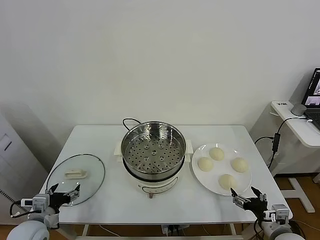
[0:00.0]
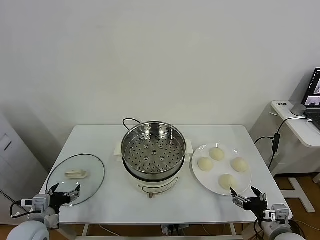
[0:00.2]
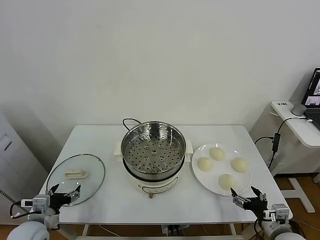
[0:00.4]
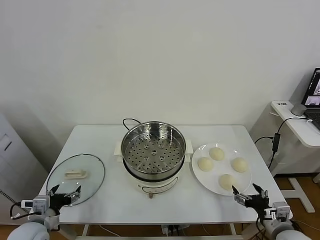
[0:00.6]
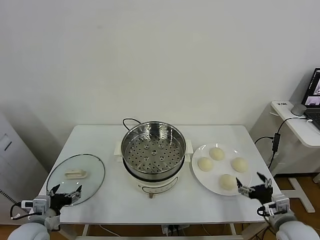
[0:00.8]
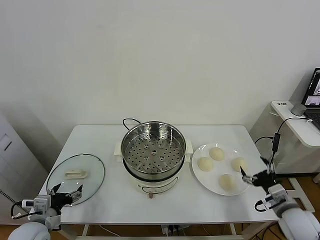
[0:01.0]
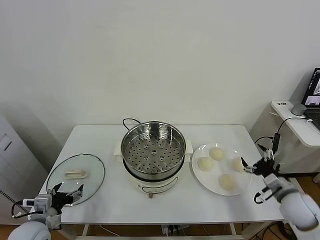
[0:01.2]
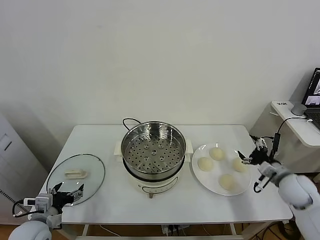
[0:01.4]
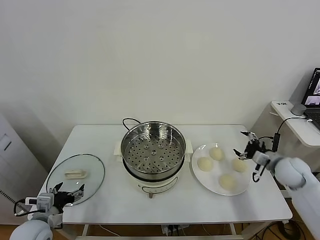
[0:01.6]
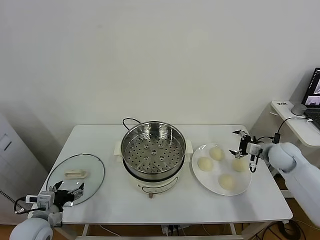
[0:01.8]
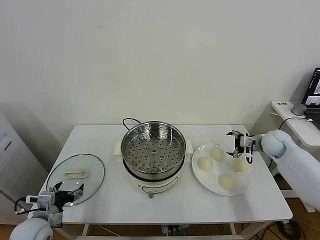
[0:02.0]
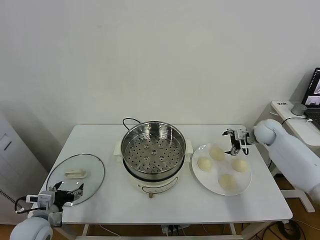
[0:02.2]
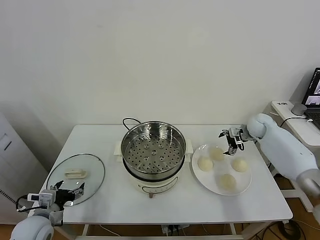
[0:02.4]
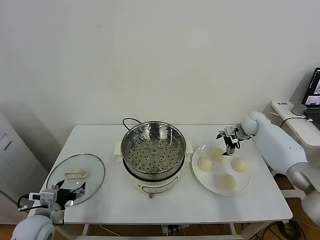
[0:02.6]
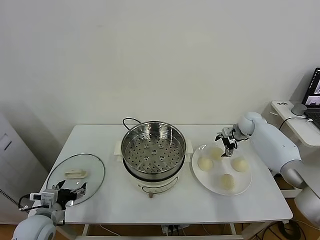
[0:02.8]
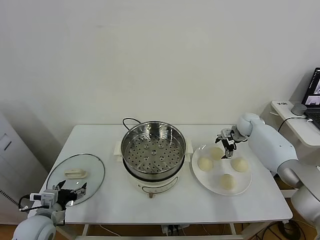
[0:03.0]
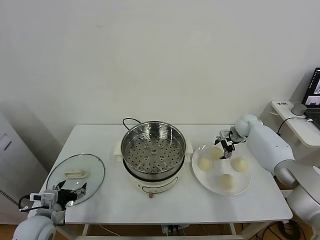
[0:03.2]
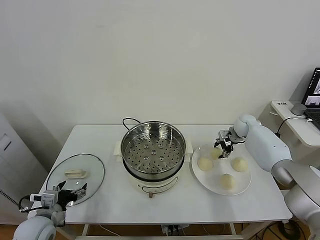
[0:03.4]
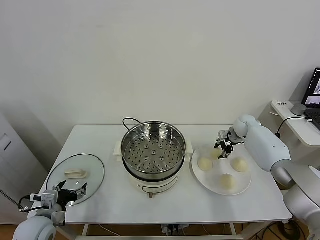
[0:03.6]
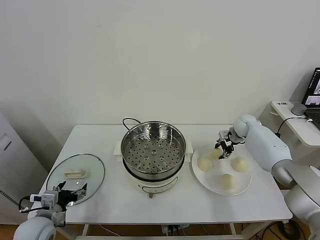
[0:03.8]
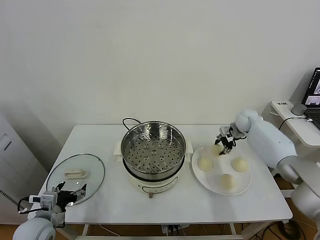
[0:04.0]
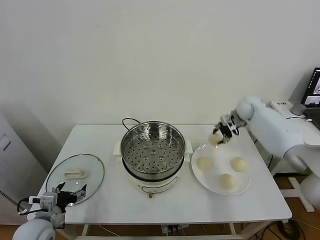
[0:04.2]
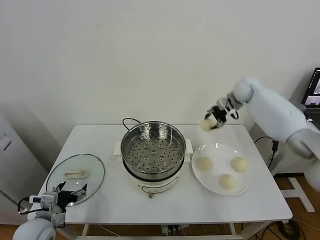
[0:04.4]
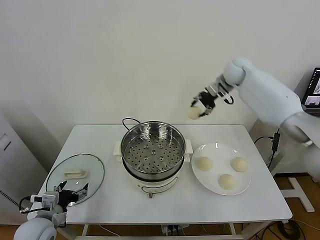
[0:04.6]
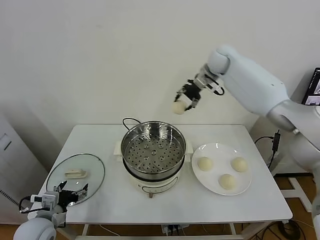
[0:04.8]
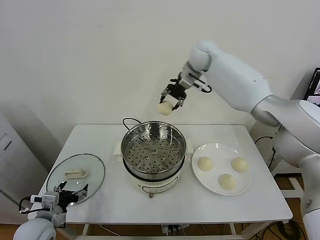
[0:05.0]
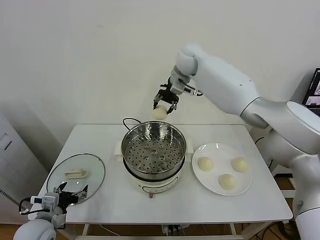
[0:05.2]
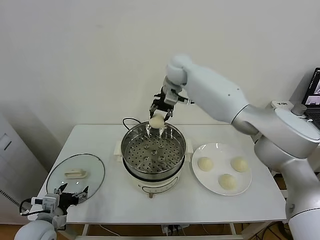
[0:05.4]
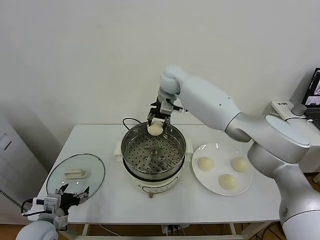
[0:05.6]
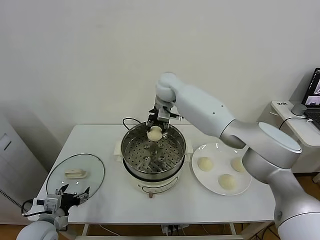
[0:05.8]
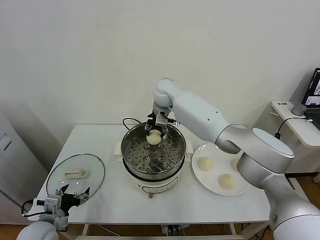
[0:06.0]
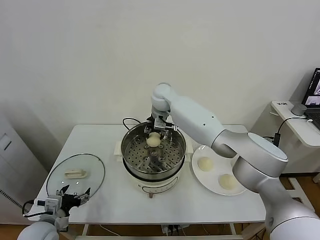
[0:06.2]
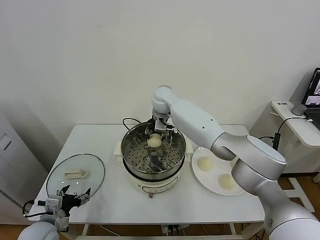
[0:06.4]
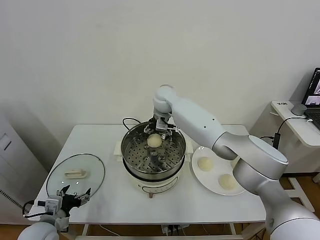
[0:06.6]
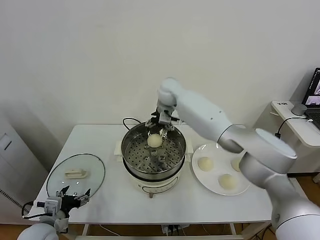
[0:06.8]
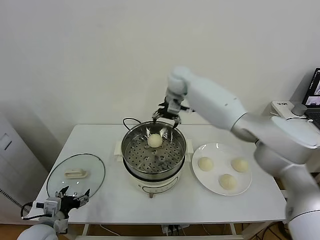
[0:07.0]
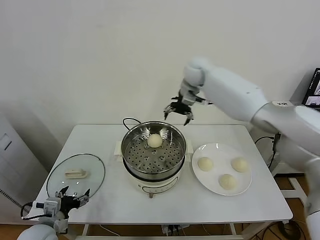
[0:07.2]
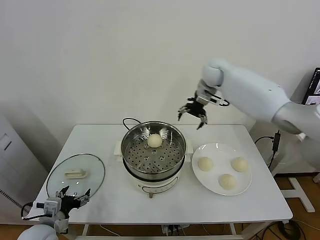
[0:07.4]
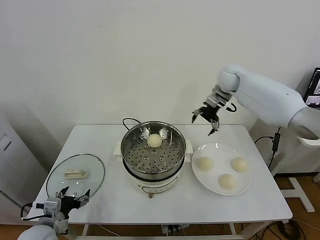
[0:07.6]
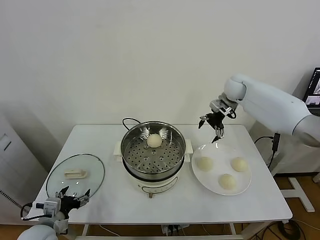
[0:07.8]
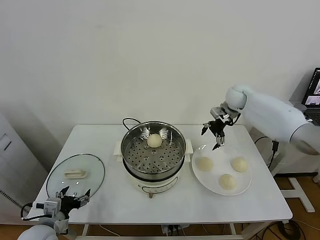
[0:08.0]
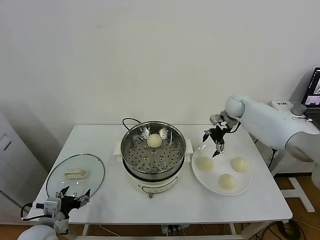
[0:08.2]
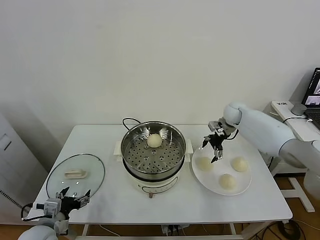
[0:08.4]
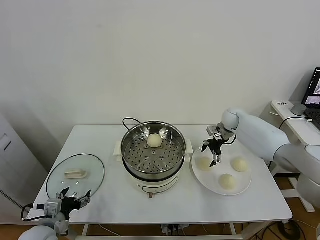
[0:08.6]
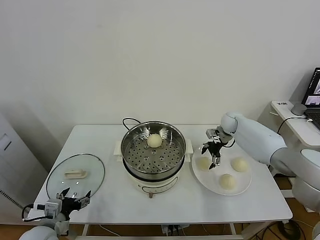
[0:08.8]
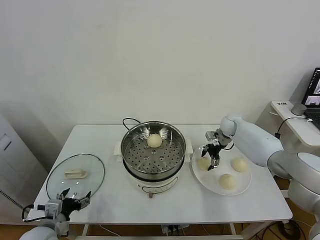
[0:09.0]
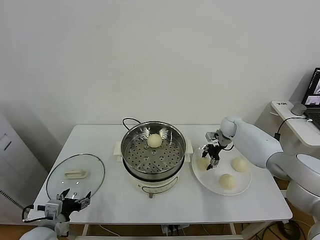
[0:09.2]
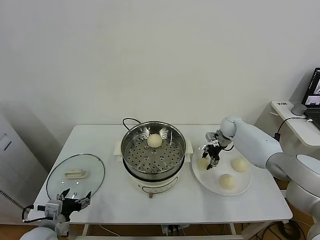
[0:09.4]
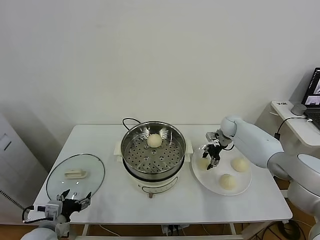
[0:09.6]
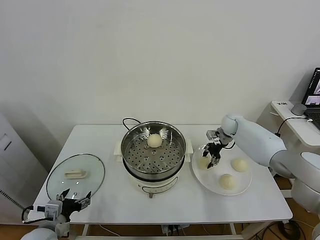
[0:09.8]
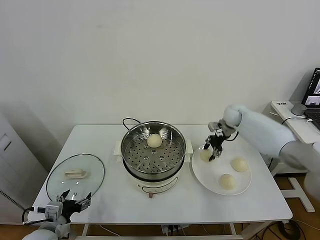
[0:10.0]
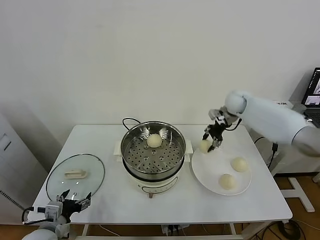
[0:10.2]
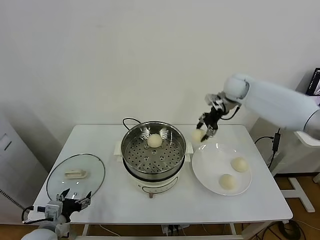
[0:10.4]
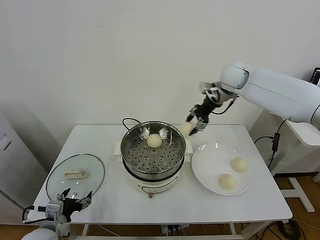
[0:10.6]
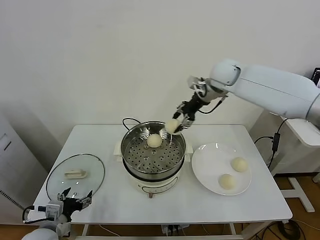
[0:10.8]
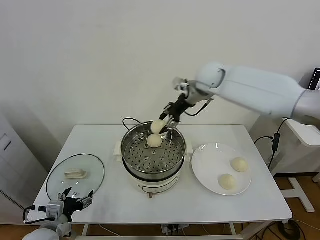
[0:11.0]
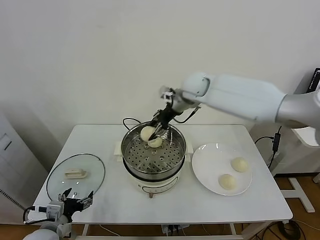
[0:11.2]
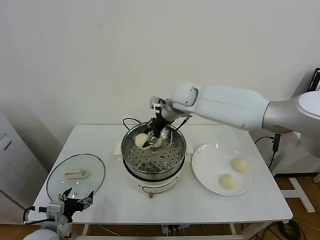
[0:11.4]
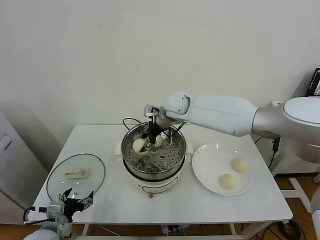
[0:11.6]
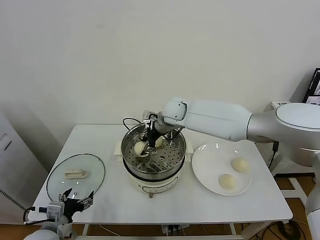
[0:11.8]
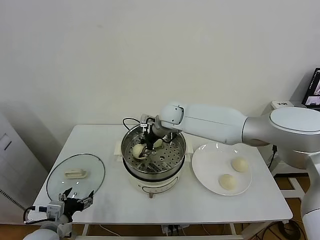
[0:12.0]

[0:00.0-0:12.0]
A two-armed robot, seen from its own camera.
Task of the whole recording: take steamed baozi put them in steamer.
Step, 0:00.0 to 0:03.4: Grasp the baozi in the plate with right gripper.
Step, 0:03.6 to 0:06.6: Place the baozi on the steamer with right gripper.
Step, 0:06.8 to 0:09.2: Grasp the baozi in the plate with right gripper.
0:01.6 to 0:03.0: The right gripper shifts some 20 cm forward.
0:03.0 to 0:04.4: The right gripper is displaced upward by some 20 cm, and closes its fingers.
0:04.4 to 0:06.0: The right gripper shifts approximately 30 cm to the left.
0:06.0 to 0:07.6: The right gripper shifts roughly 25 cm to the right, and opens up.
0:07.6 to 0:09.0: The right gripper goes roughly 20 cm downward.
0:09.0 to 0:10.4: The right gripper heads upward, covering some 20 cm, and closes its fingers.
0:10.4 to 0:12.0: The right gripper travels to the left and downward by some 25 cm.

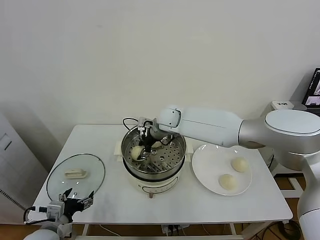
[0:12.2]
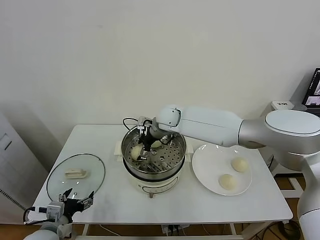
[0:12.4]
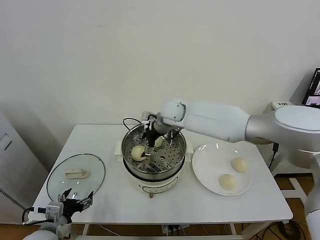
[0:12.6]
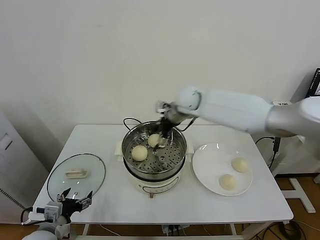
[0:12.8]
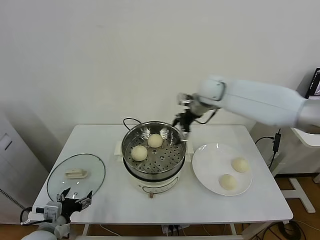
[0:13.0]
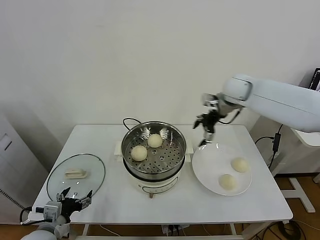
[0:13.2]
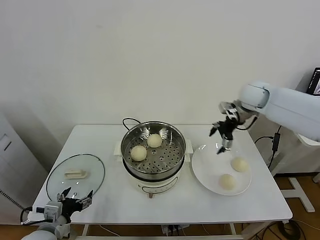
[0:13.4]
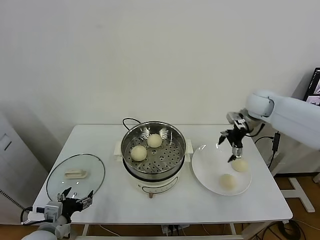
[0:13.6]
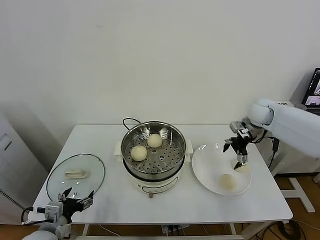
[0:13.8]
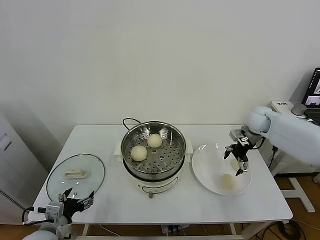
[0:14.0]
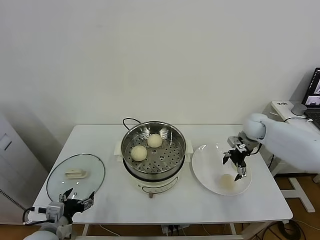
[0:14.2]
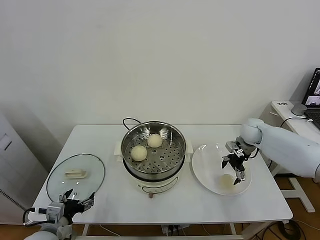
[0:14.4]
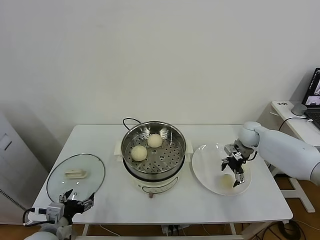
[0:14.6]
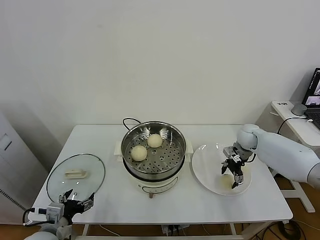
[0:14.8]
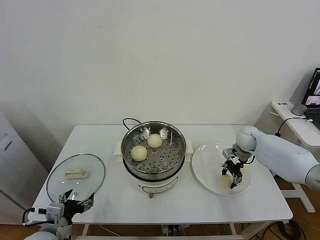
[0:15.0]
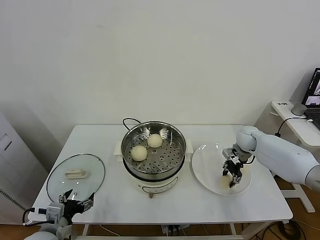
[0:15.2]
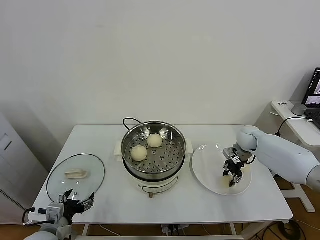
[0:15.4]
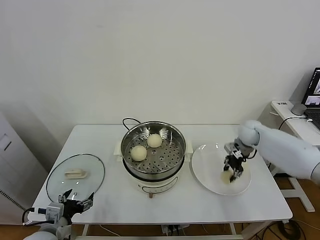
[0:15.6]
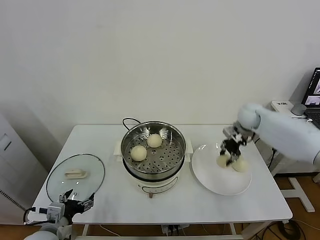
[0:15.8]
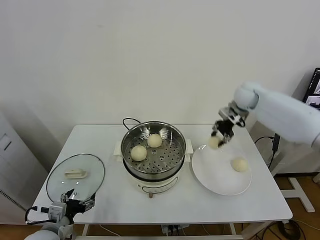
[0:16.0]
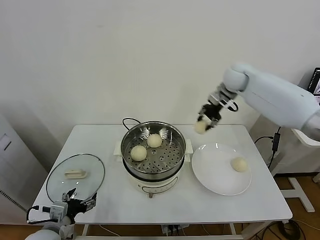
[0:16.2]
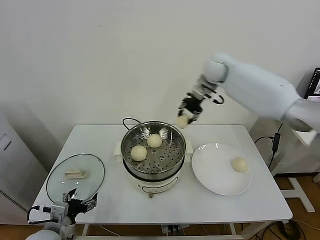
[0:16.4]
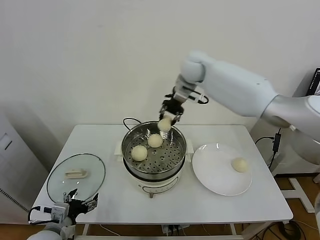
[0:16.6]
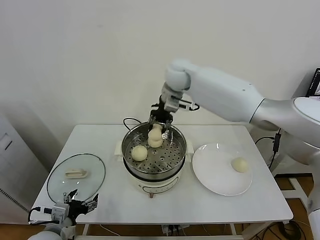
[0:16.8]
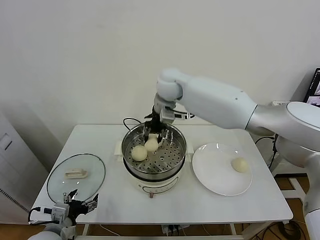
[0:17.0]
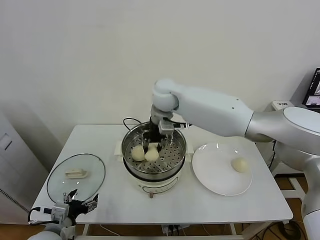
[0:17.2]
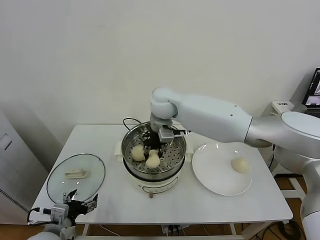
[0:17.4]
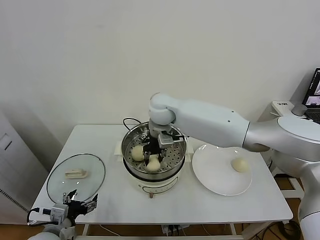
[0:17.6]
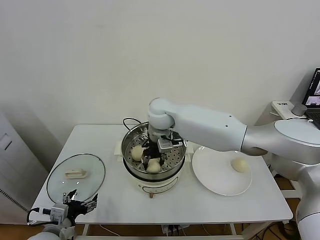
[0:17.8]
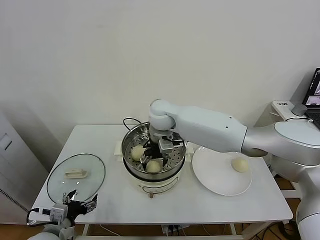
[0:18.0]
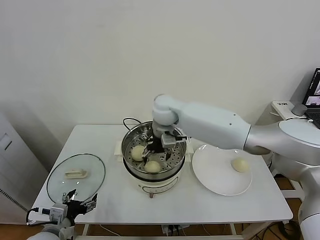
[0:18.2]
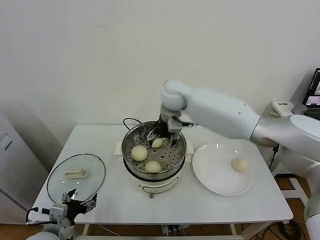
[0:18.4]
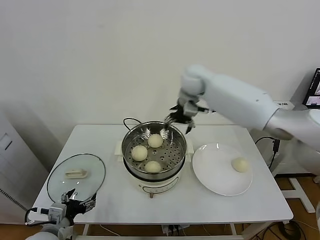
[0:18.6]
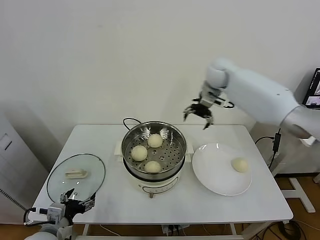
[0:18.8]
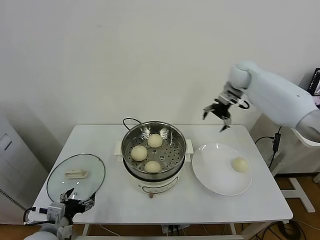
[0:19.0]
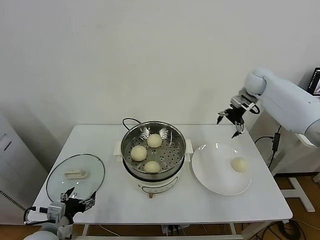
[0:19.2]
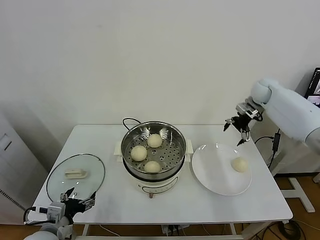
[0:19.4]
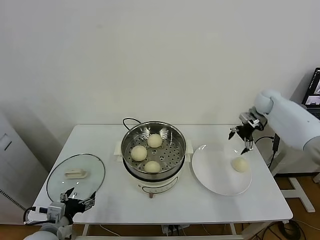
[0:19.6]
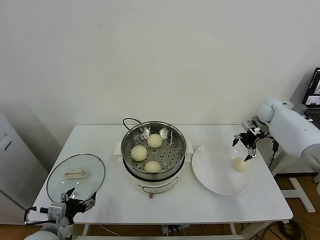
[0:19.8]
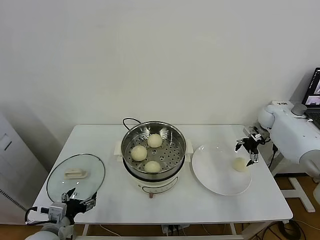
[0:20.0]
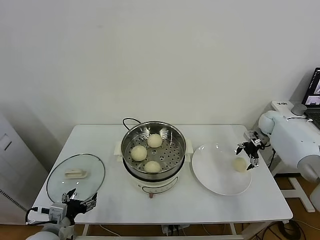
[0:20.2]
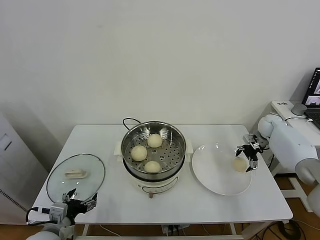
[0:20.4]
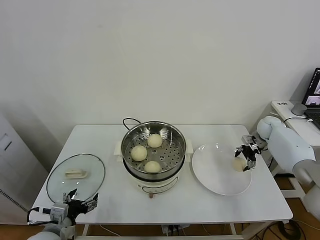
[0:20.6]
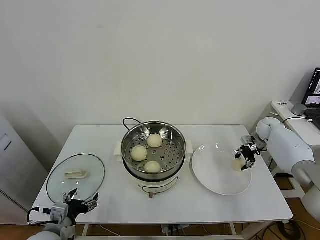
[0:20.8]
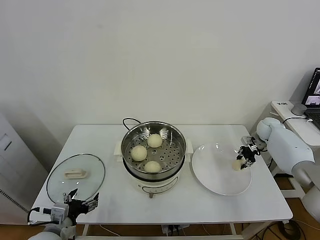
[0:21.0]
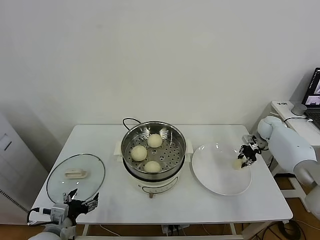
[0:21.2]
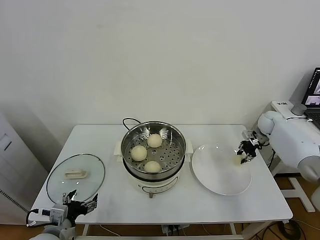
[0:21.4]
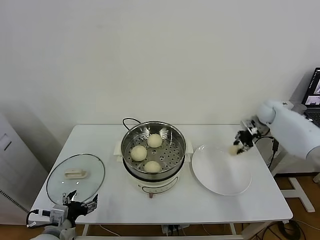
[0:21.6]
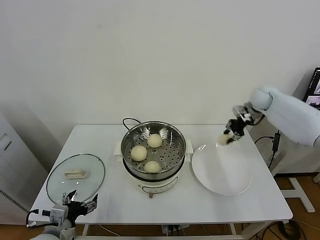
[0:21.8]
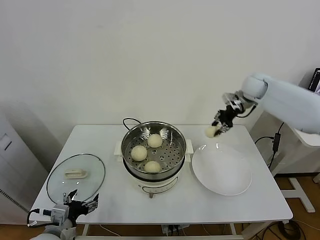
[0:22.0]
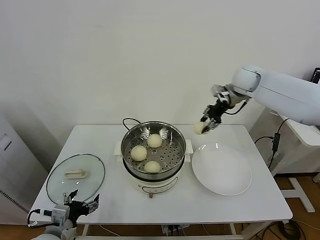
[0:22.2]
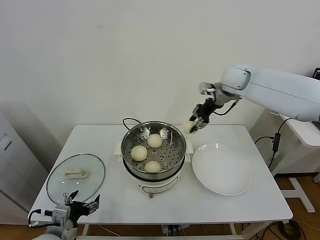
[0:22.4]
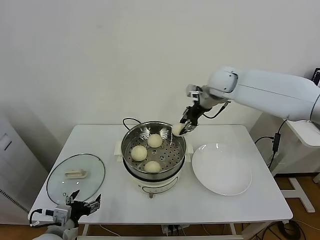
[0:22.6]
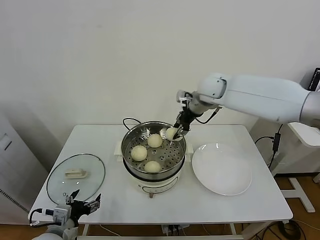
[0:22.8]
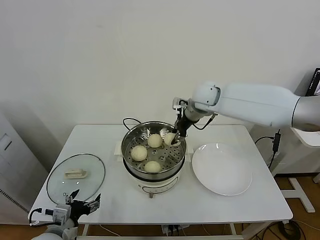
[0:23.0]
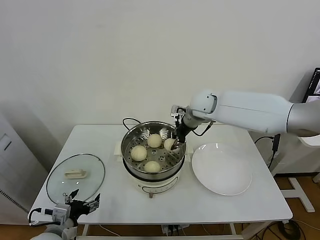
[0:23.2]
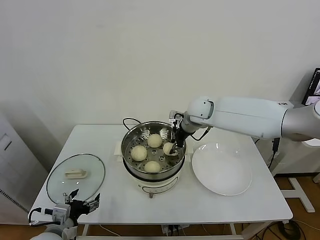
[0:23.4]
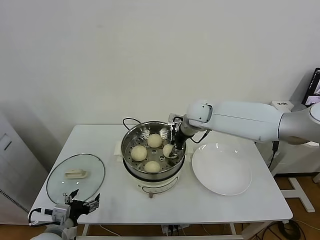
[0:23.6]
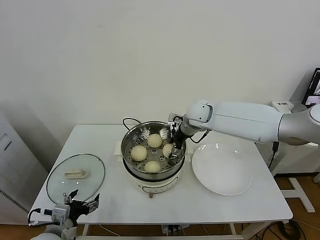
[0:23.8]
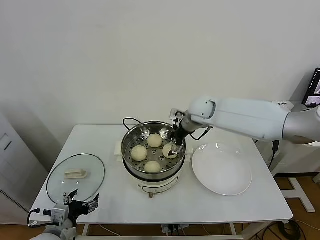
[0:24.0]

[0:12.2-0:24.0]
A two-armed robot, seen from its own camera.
Task of the whole recording: take steamed baozi put them in steamer.
Step, 0:13.0 to 0:15.0: Grasp the baozi in the plate with right gripper.
Step, 0:15.2 to 0:18.2: Place the baozi on the steamer with right gripper.
Step, 0:18.4 to 0:20.8: Grasp the baozi in the plate with right gripper.
0:12.2 to 0:13.6: The right gripper moves to the right, some 30 cm, and opens.
0:13.6 to 0:15.2: The right gripper moves downward, some 15 cm, and closes up.
0:15.2 to 0:16.6: The right gripper heads upward and to the left, covering some 40 cm.
0:16.6 to 0:18.2: The right gripper moves downward, to the left and backward, approximately 15 cm, and opens its fingers.
0:18.2 to 0:19.6: The right gripper goes some 40 cm to the right.
0:19.6 to 0:21.0: The right gripper heads downward, covering about 10 cm, and closes up.
0:21.0 to 0:22.6: The right gripper moves to the left and upward, about 35 cm.
0:22.6 to 0:24.0: The right gripper travels downward and to the left by about 10 cm, and opens up.
